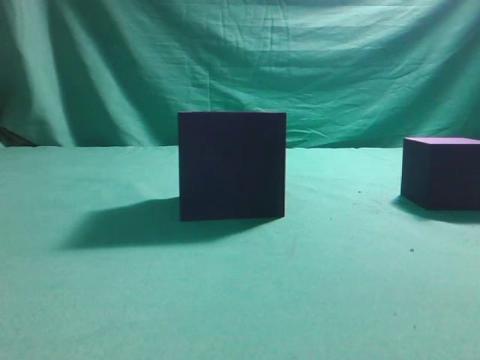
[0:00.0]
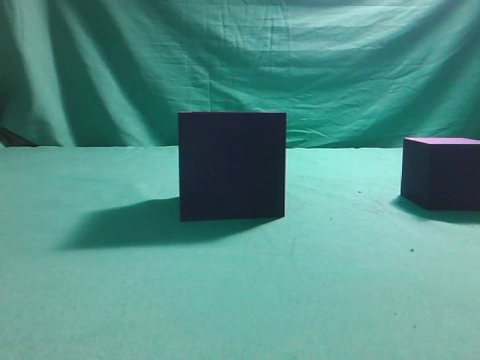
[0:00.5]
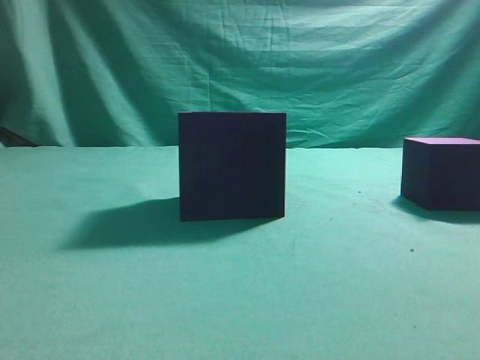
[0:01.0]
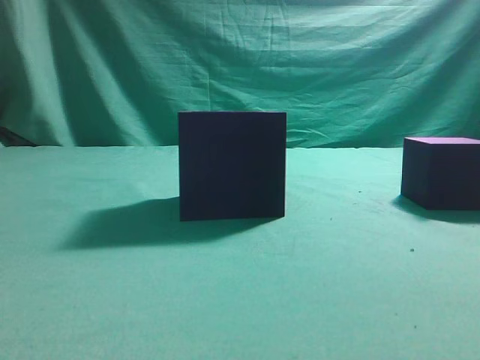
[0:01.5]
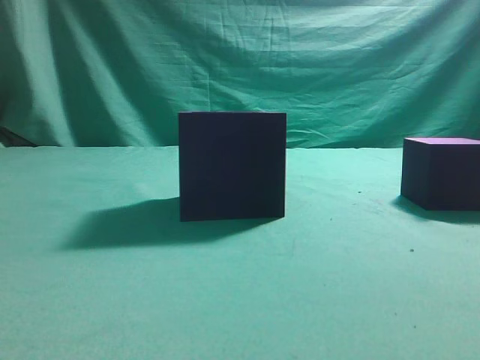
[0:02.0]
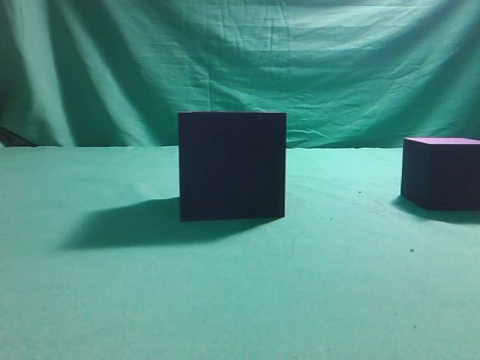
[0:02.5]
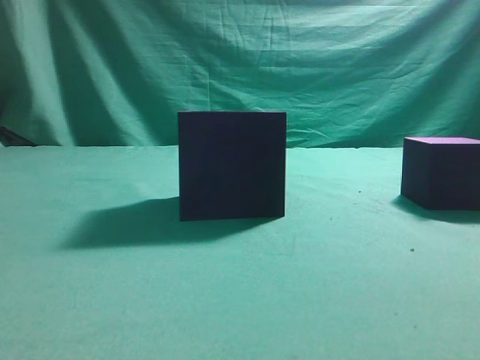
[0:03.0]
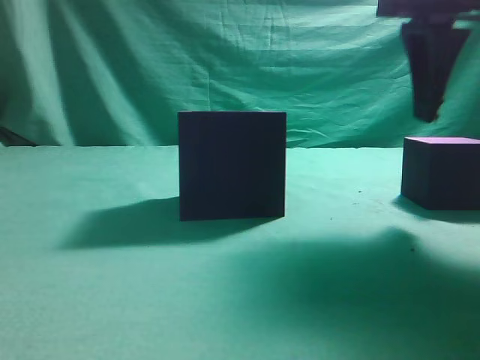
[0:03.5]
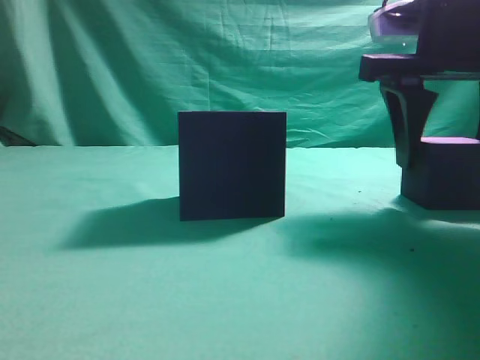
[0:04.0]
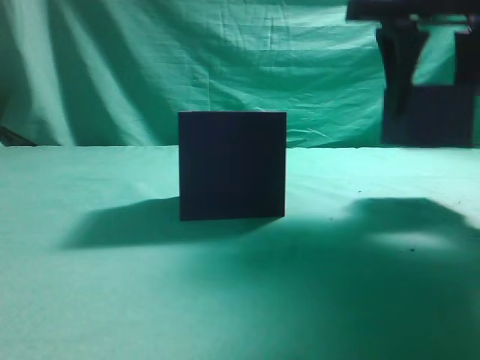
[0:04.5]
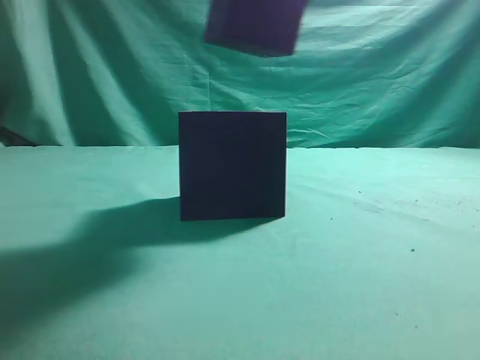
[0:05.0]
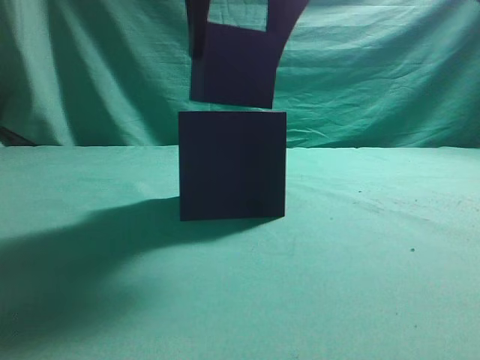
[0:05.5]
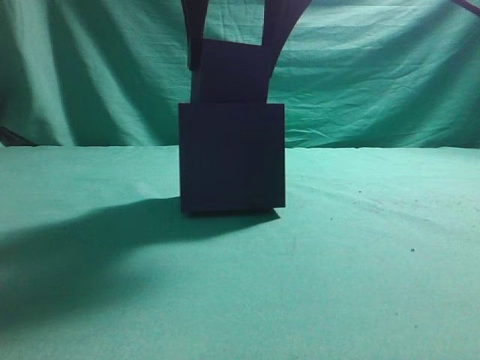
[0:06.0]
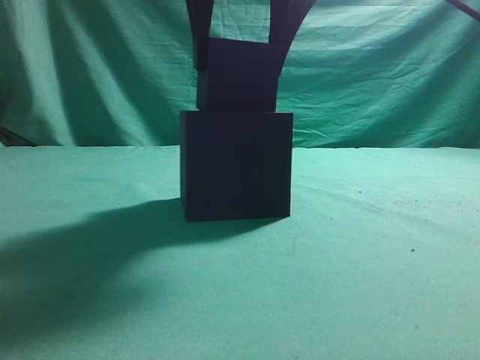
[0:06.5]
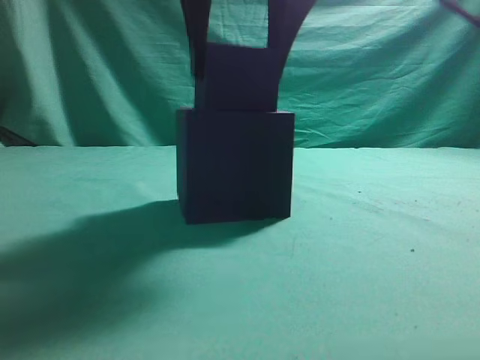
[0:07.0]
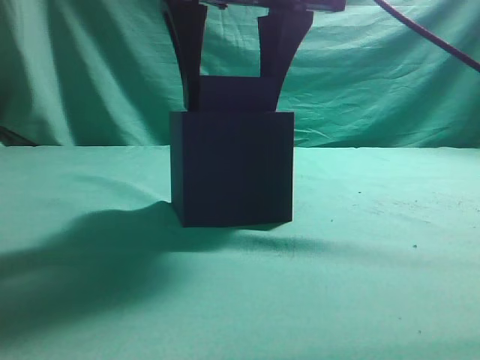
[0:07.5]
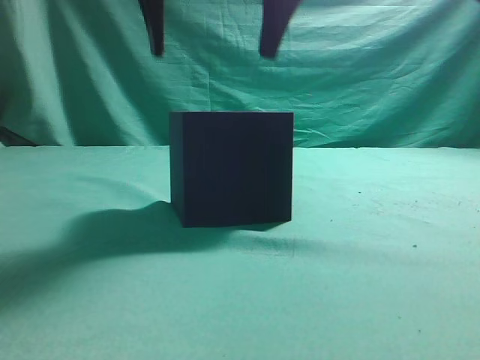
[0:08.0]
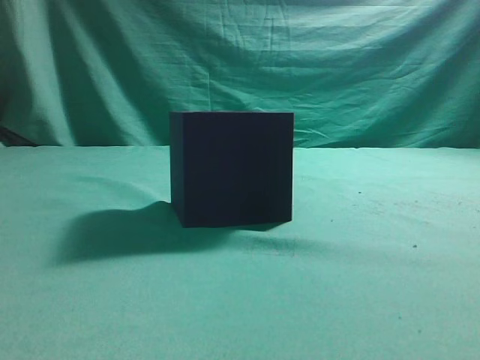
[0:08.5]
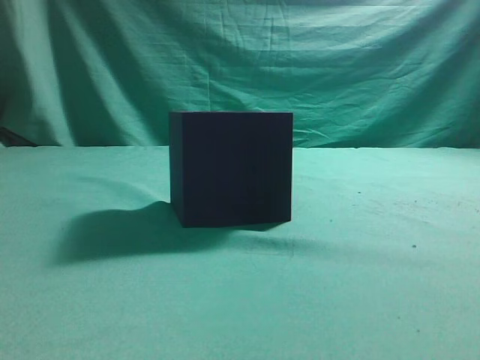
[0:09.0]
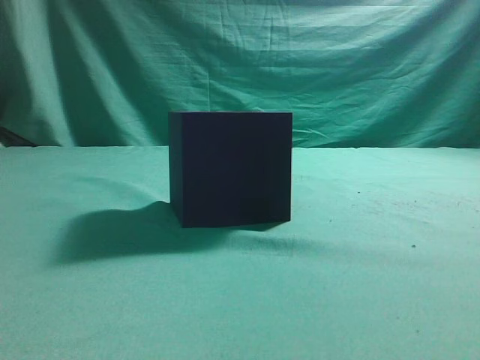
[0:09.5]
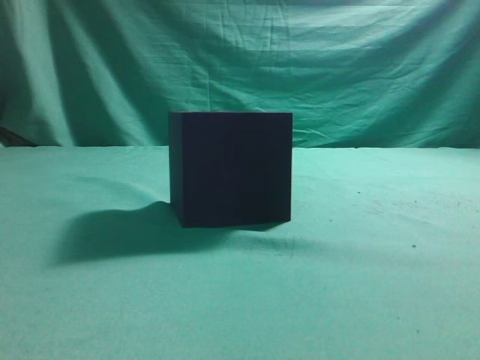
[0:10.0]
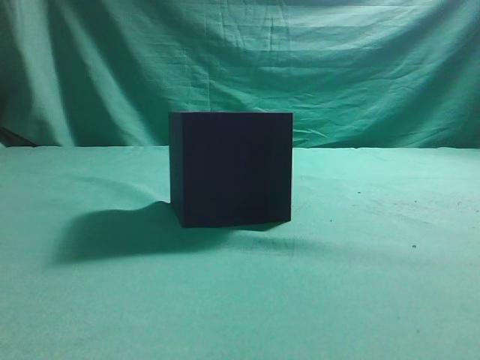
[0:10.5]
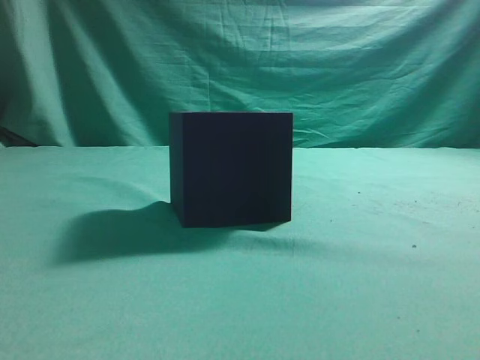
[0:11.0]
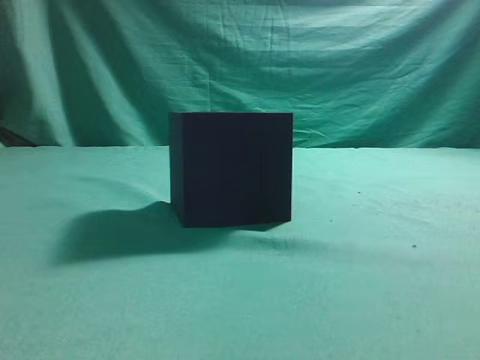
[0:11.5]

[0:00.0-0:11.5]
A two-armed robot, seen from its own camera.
Task of the whole recording: pick up the cube block and place it into the cube groove.
Step, 0:00.0 to 0:04.5: Grasp the cube.
Step, 0:05.0 to 0:07.5: Place cube into the cube-shaped recess.
0:02.0 to 0:04.0: The right gripper is displaced forward and to the left by approximately 25 cm, and opens.
0:04.0 to 0:06.0: The right gripper heads to the left and upward, covering some 20 cm.
0:06.0 to 0:07.5: The grippers move only a little.
0:07.5 to 0:09.5: The right gripper is displaced to the right, backward and upward by about 40 cm, and closes.
